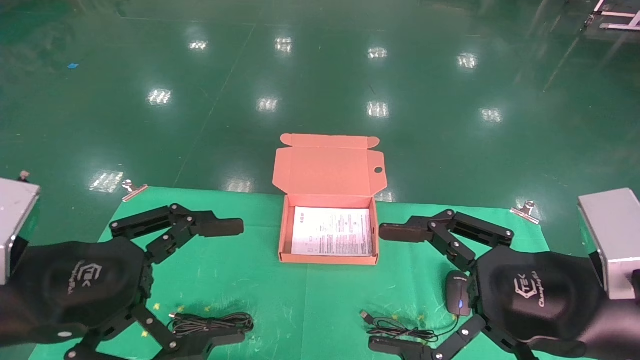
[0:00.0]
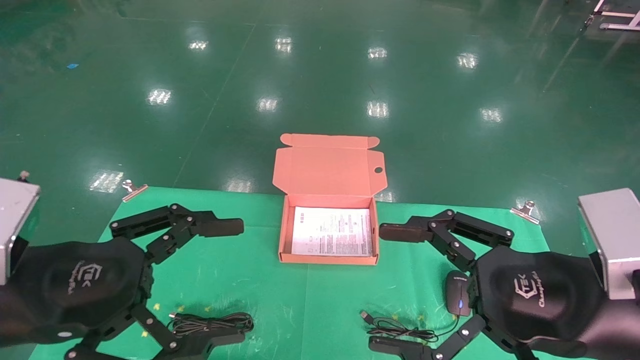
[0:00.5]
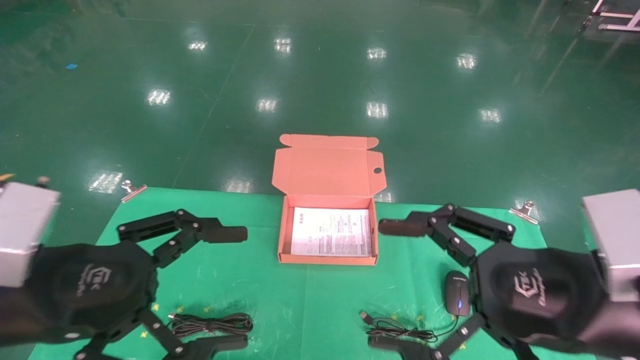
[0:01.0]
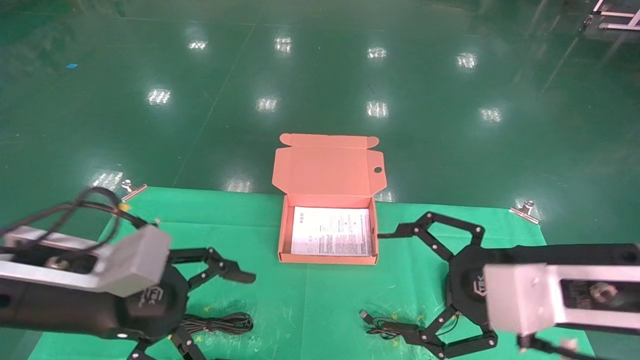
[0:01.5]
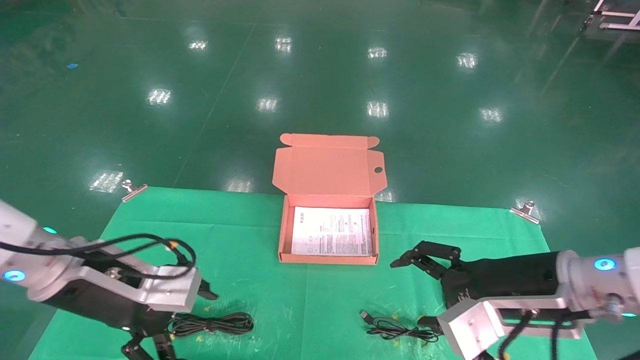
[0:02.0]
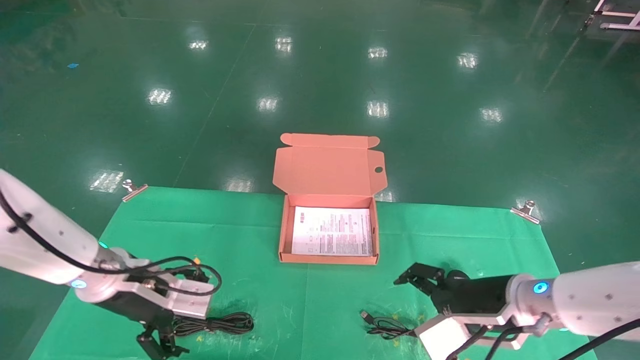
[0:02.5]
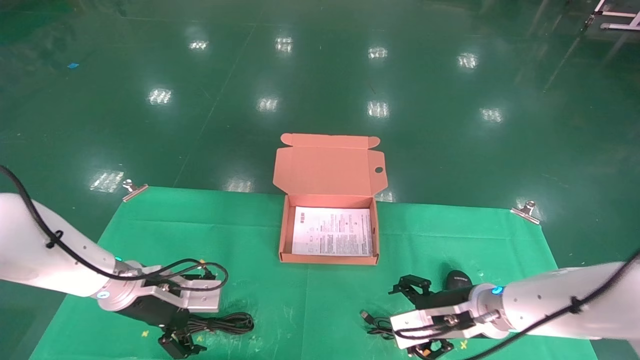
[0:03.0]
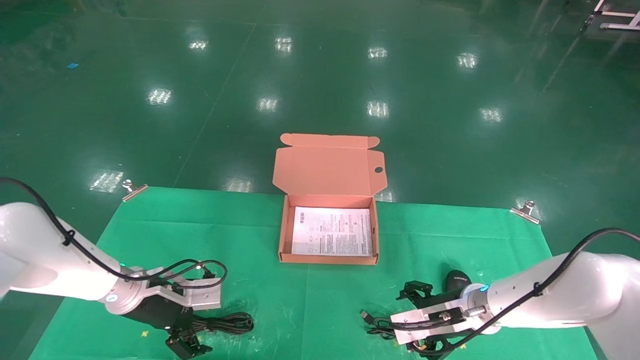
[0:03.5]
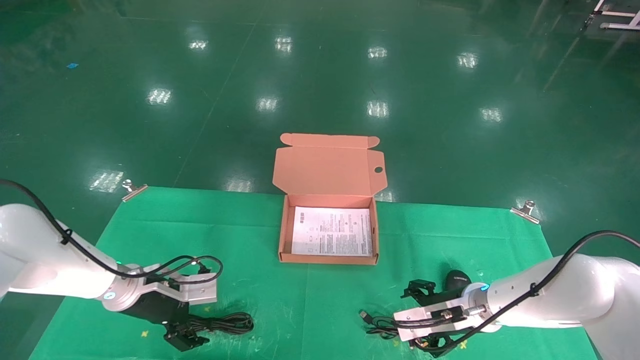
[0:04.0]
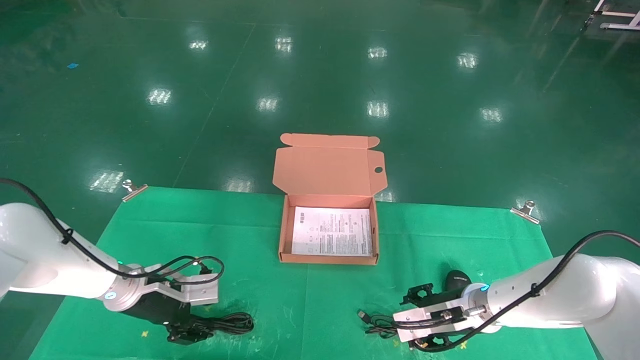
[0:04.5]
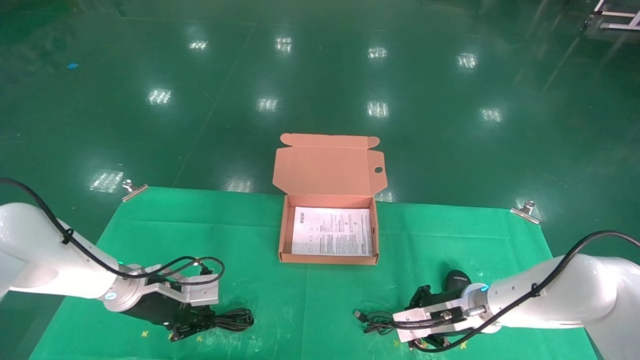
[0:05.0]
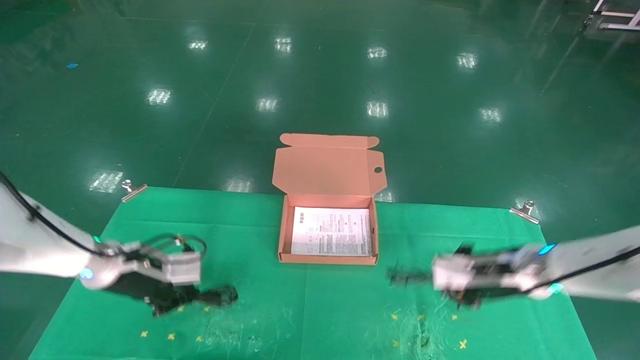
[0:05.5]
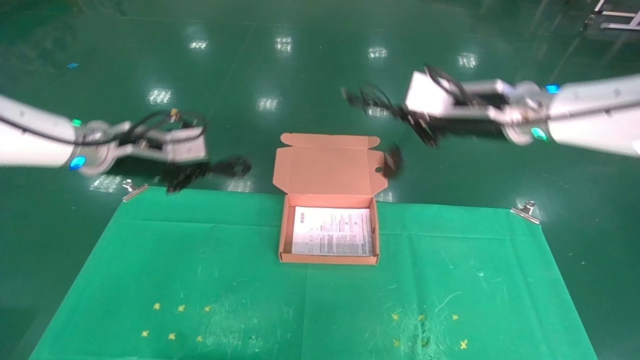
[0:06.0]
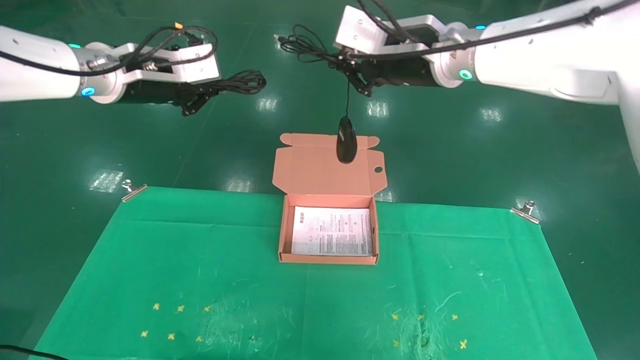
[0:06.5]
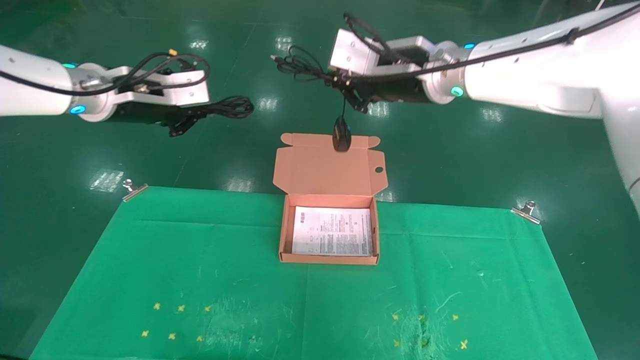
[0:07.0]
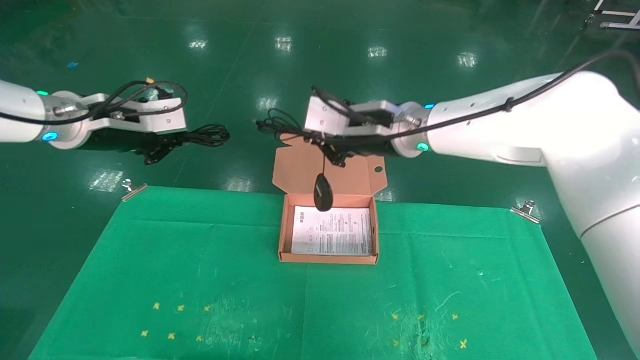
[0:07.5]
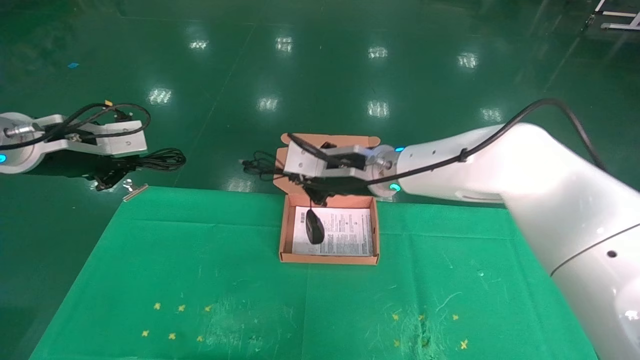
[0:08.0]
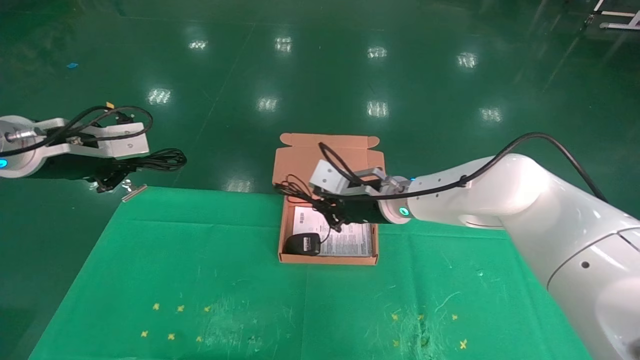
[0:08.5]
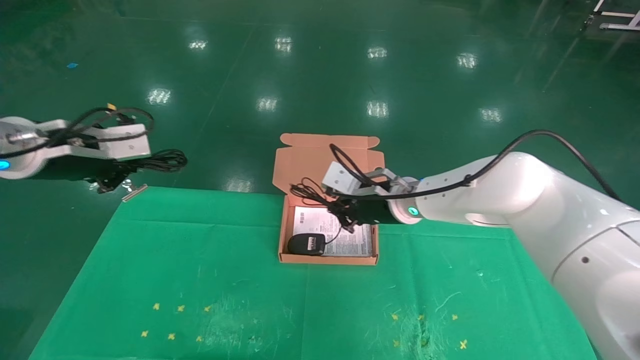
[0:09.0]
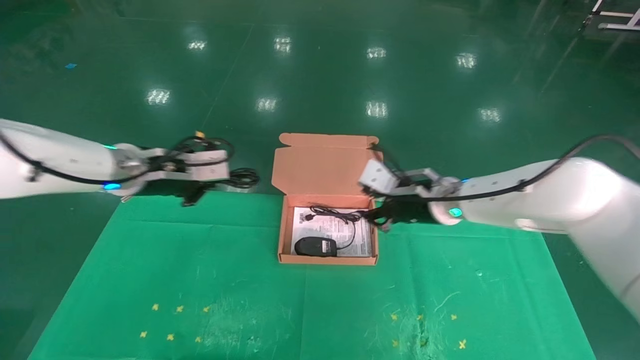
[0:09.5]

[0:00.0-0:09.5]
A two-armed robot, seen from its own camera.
Task of the whole recording: grasp data cable left put into box grasp mouse right put into box.
Step, 0:01.0 to 0:05.0: Grab and pick up both the mouse and power cord from the accessory packaging area at the same time.
0:00.0 to 0:02.0: The right gripper shifts roughly 10 cm forward and downward; the left gripper moves forward, roughly 10 cm.
0:02.0 to 0:04.0: The left gripper goes roughly 15 cm forward and downward. The right gripper is displaced downward and forward by approximately 20 cm.
0:04.0 to 0:05.5: The left gripper moves upward, roughly 5 cm, and closes; the right gripper shifts approximately 10 cm upward, and closes up.
0:05.5 to 0:07.5: The right gripper heads to the left and upward, covering roughly 25 cm, while the left gripper is displaced upward by approximately 20 cm.
0:07.5 to 0:09.5: The right gripper heads downward and to the right, covering roughly 15 cm, while the left gripper is displaced to the right and downward by approximately 10 cm.

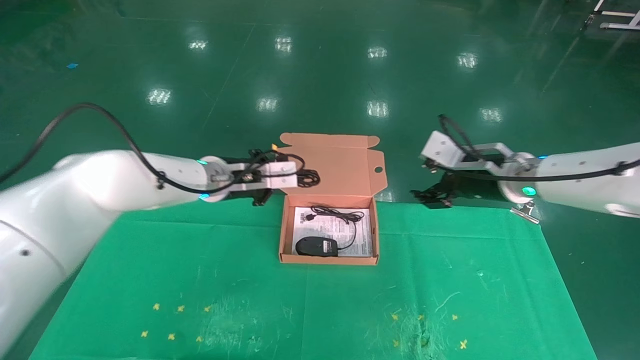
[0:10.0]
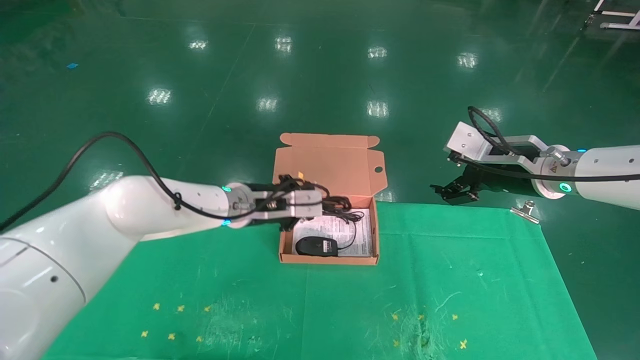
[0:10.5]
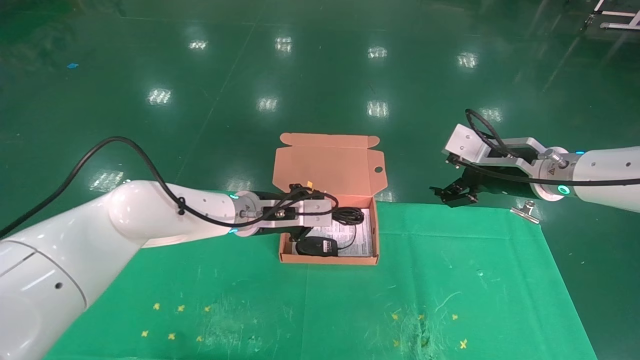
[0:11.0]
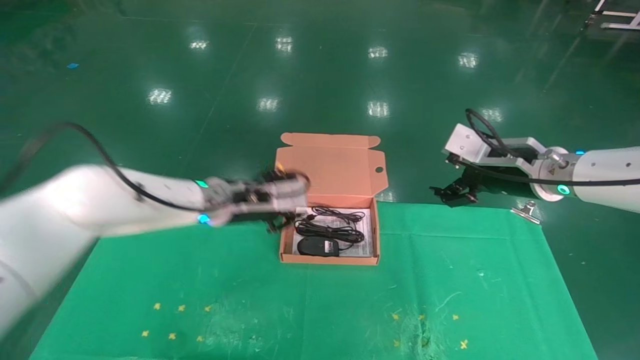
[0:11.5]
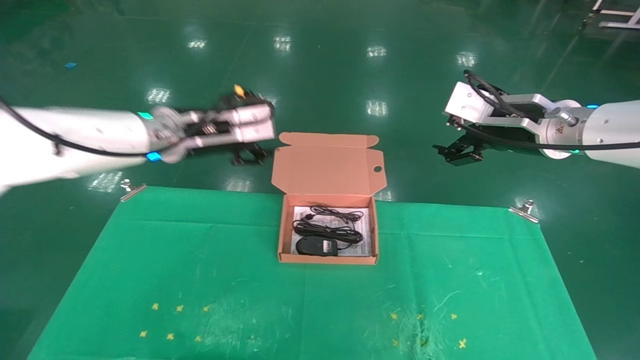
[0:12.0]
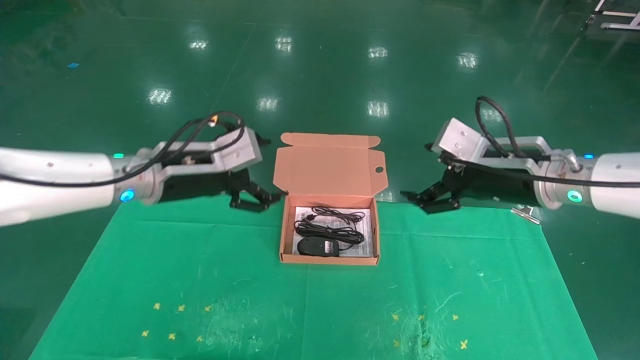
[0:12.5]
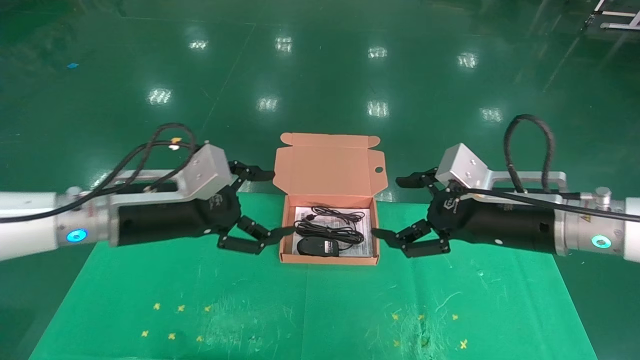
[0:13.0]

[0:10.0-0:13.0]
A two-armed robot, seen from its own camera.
Task of the whole recording: grasp data cable left put into box grasp mouse right put into box.
0:10.0 to 0:11.5: The right gripper opens up.
0:11.5 to 0:13.0: The right gripper is displaced backward by about 10 cm; the left gripper is displaced backward and to the left by about 15 cm, and opens up.
